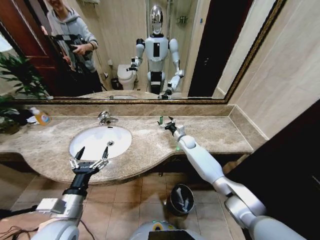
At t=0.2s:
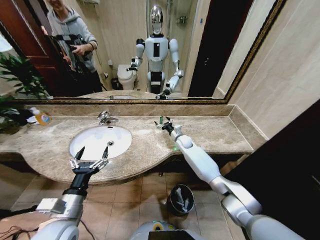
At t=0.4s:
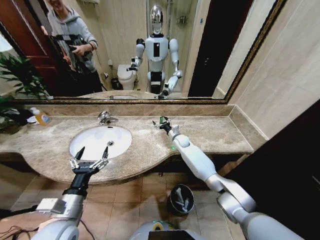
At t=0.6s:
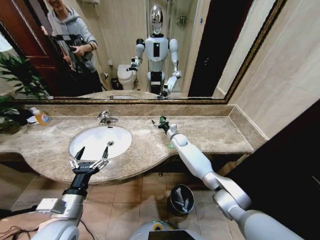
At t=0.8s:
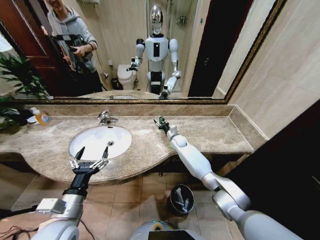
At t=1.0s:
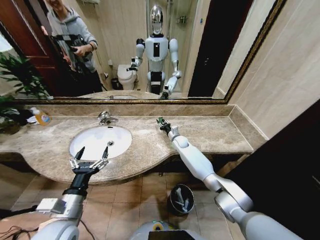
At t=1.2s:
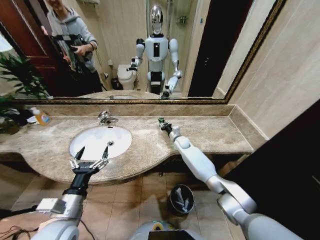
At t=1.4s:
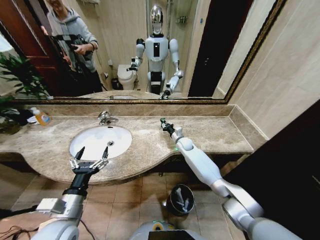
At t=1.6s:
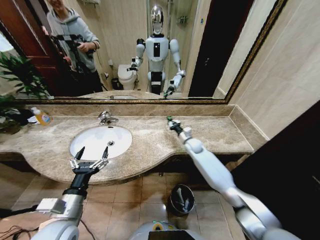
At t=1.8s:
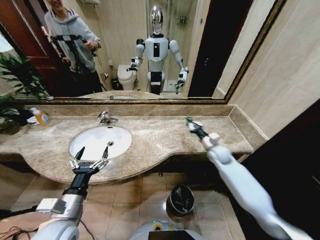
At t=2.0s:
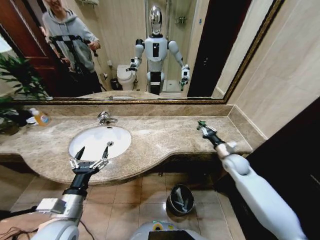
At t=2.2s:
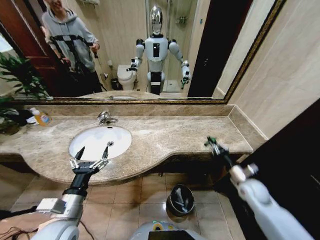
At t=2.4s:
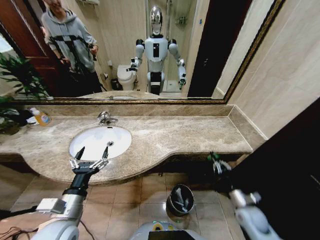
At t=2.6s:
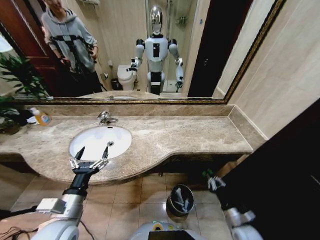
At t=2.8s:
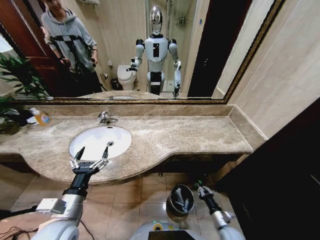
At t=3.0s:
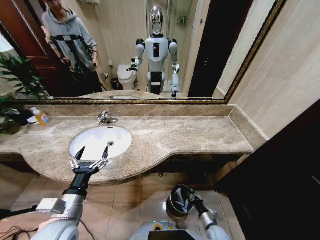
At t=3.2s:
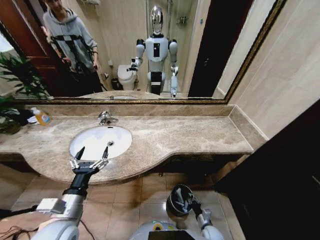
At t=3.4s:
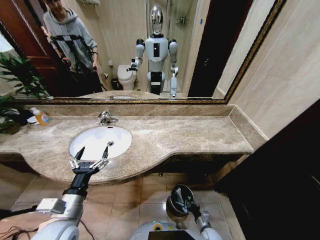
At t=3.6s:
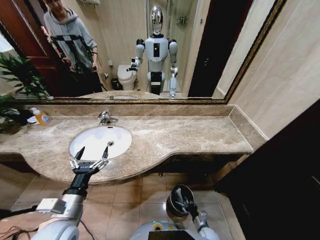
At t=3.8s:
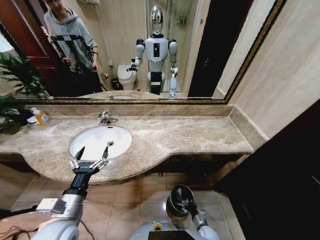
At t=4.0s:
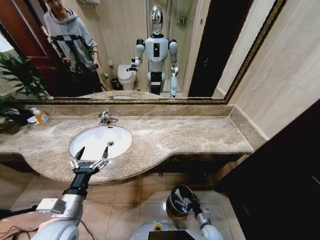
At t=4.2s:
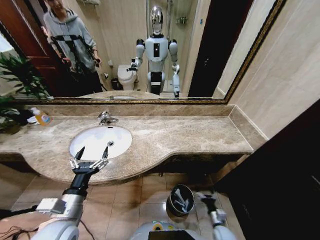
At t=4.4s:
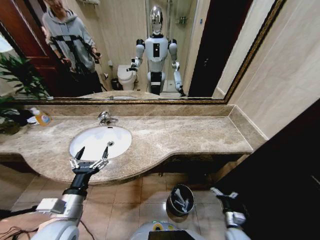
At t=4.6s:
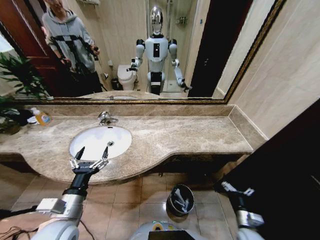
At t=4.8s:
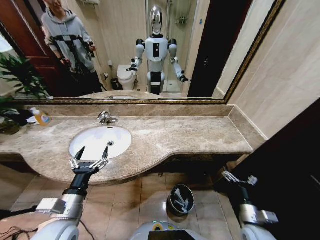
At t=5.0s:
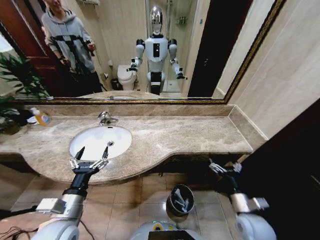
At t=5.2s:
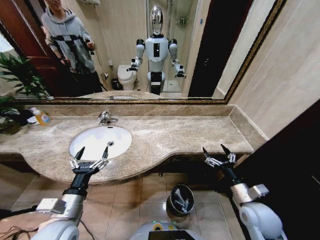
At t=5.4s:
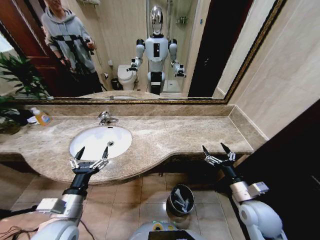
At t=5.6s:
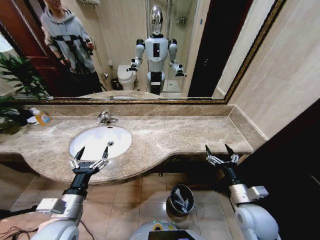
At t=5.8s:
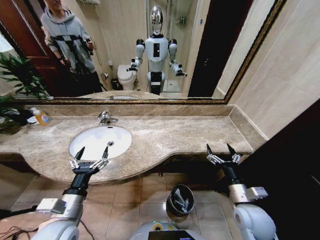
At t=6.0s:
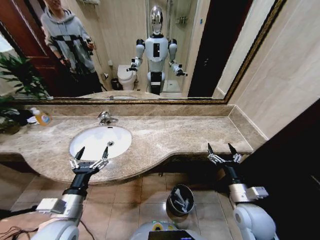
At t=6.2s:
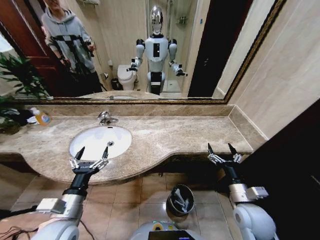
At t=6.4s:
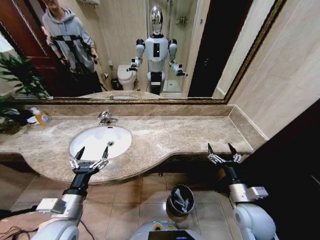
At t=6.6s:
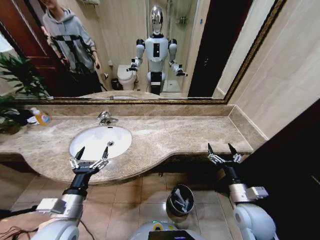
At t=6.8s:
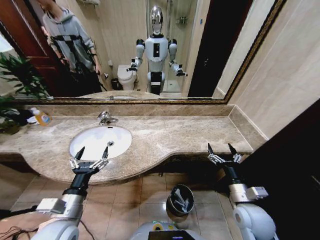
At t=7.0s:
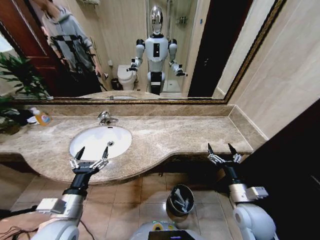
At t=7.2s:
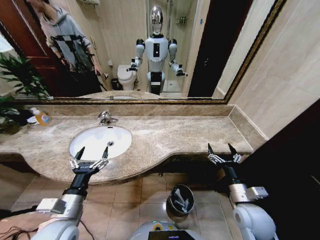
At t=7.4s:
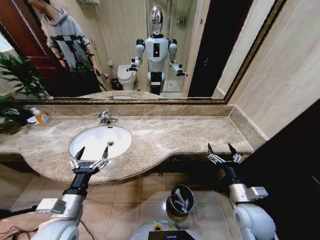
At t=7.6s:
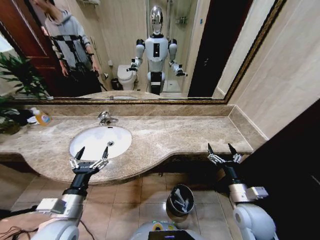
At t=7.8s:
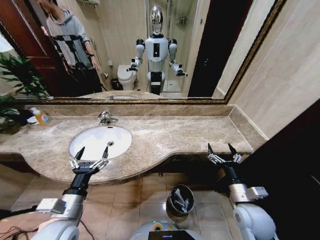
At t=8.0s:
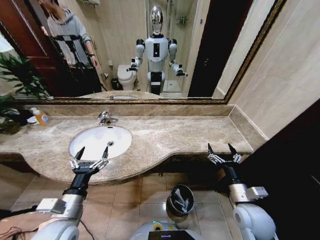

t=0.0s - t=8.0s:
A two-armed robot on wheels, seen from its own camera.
Task of the whole recording: Pick up the trash from the sink and place it in the trash bin.
t=0.0s - t=1.6s: The right gripper shifts by about 5 cm, and closes.
t=1.6s - t=3.2s: The right gripper goes roughly 50 cm backward and downward.
t=3.2s - t=4.8s: The right gripper moves upward, approximately 25 cm, and opens up.
t=4.8s - t=6.4s: The right gripper moves upward, roughly 10 cm.
t=6.4s - t=8.0s: Both grippers stay about where they are.
